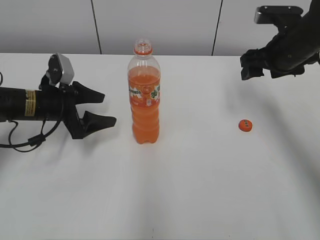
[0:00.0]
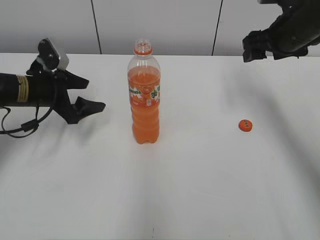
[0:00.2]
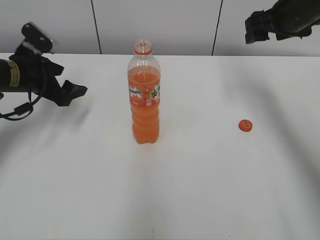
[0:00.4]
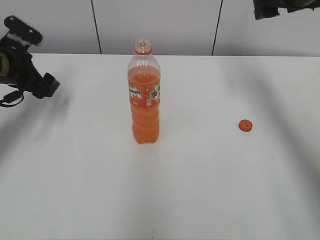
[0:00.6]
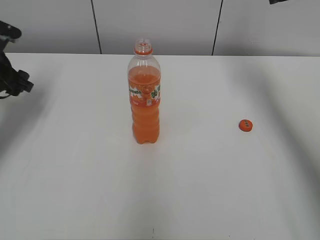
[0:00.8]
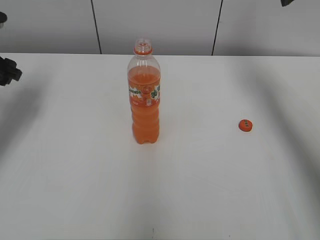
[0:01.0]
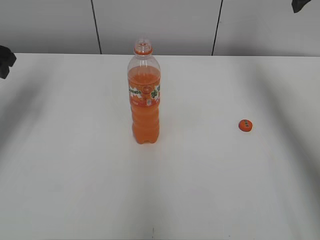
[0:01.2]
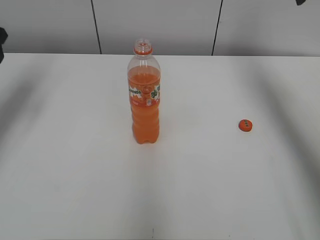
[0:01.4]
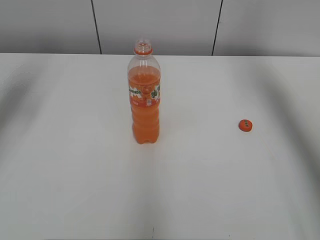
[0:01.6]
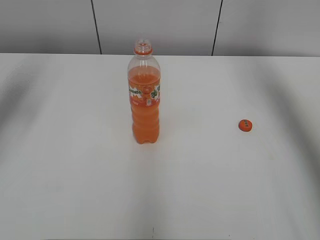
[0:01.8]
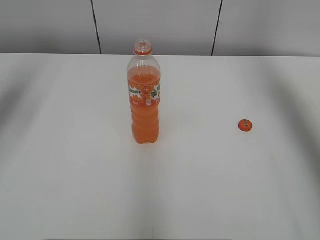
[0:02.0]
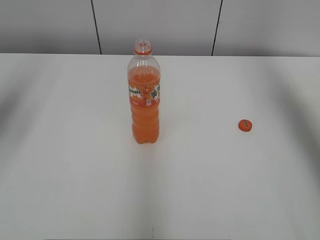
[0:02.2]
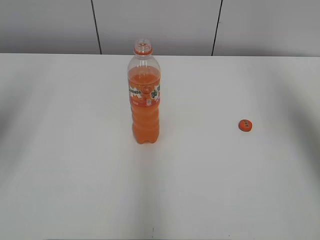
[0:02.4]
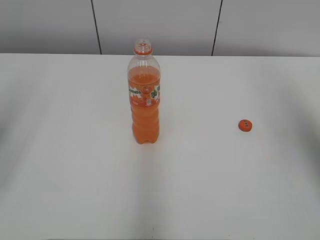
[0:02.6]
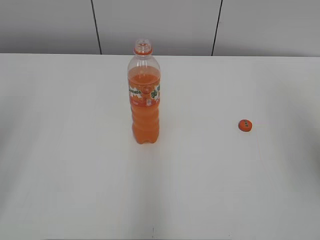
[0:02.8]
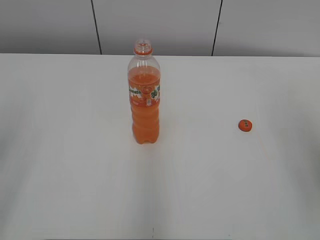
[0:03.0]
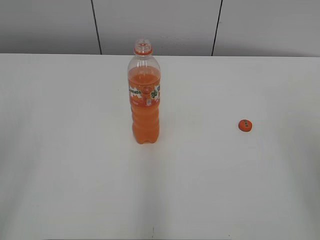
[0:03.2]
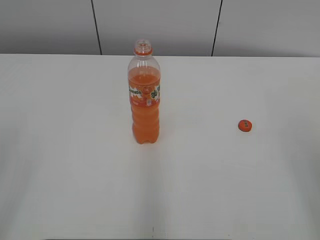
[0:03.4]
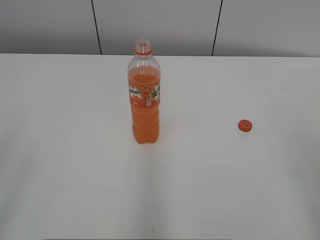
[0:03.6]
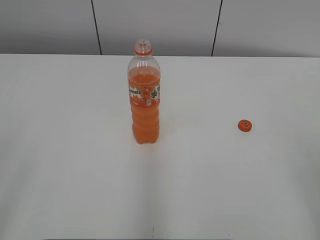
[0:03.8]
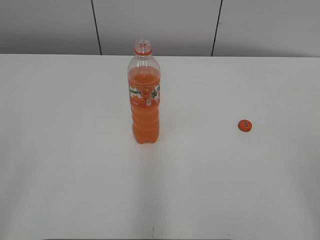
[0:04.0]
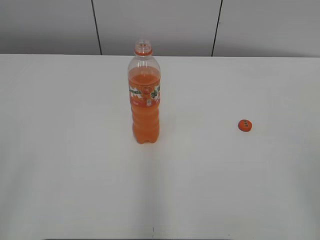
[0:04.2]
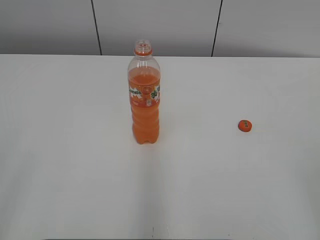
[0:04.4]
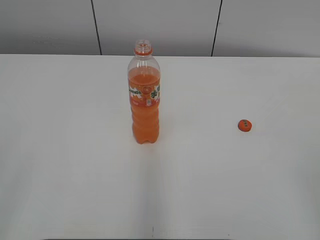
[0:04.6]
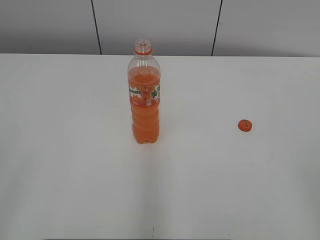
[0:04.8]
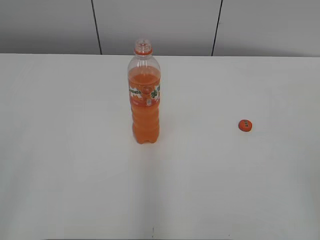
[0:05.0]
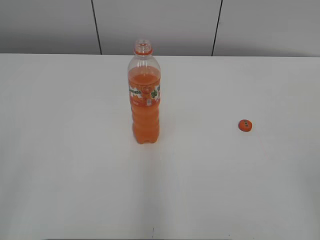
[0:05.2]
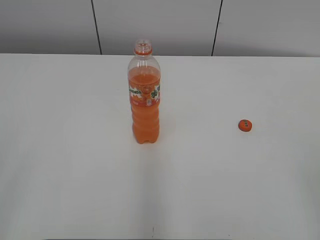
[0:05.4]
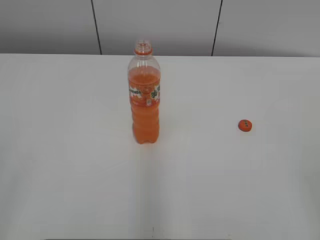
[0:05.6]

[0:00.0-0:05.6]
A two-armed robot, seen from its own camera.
0:00.0 to 0:01.4: The left gripper travels upward and to the left by some 20 cm. Meanwhile the right gripper travels upward by some 15 cm.
0:01.4 to 0:02.8: The grippers both shift backward by approximately 25 cm.
0:02.8 to 0:04.2: The left gripper shifts some 15 cm backward; the right gripper travels backward and downward by some 20 cm.

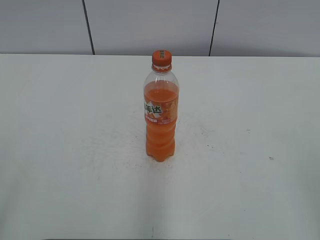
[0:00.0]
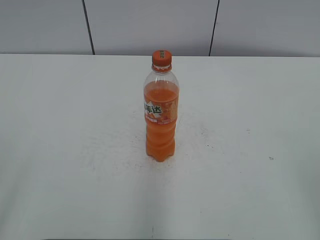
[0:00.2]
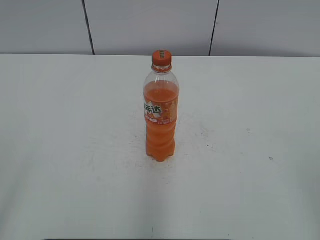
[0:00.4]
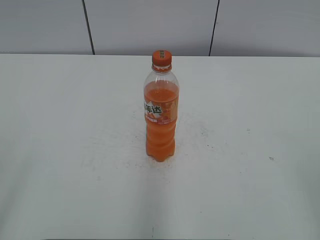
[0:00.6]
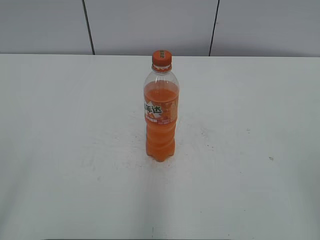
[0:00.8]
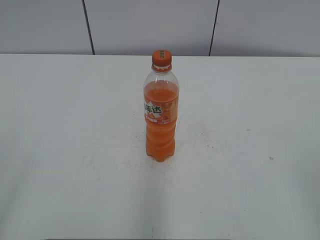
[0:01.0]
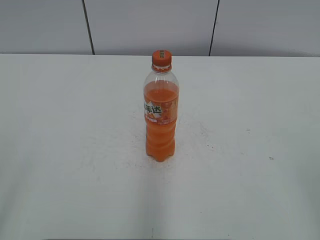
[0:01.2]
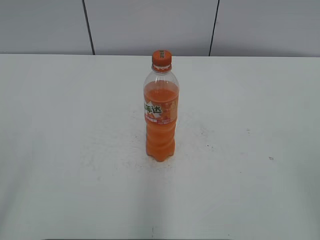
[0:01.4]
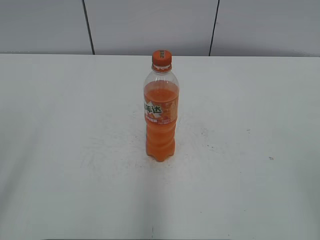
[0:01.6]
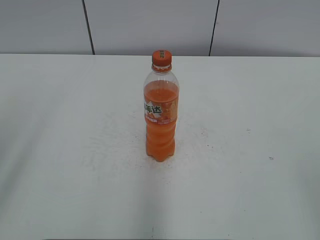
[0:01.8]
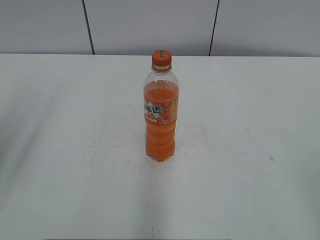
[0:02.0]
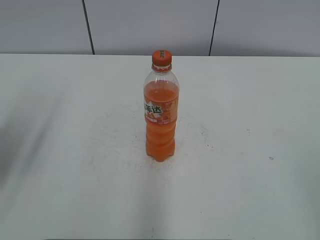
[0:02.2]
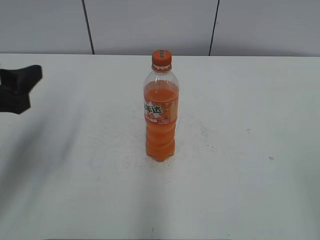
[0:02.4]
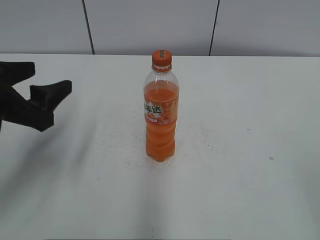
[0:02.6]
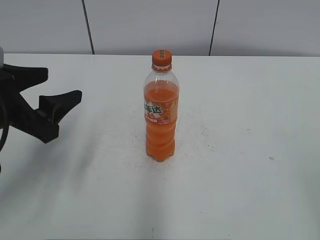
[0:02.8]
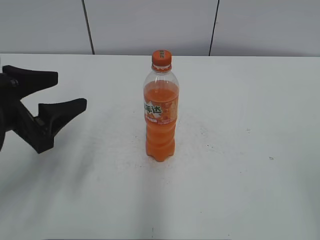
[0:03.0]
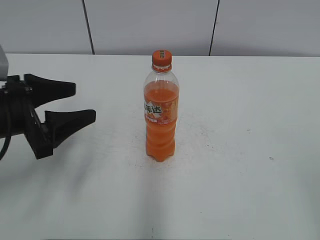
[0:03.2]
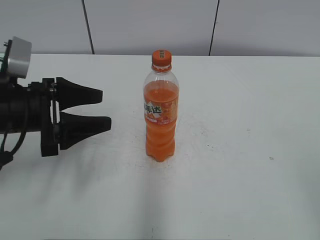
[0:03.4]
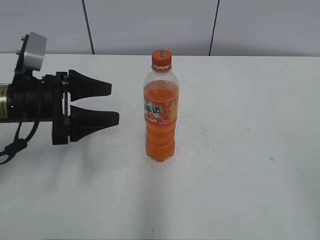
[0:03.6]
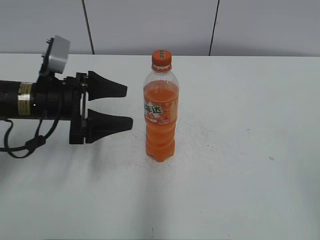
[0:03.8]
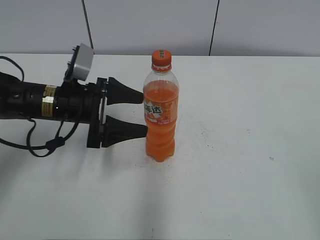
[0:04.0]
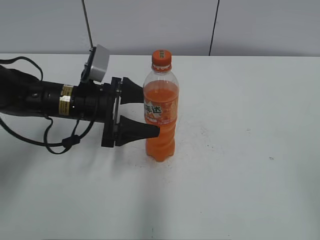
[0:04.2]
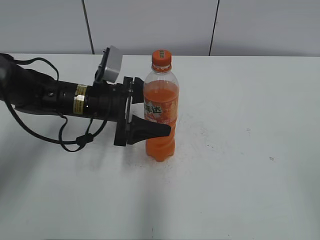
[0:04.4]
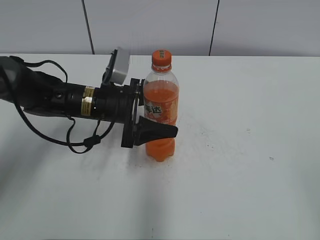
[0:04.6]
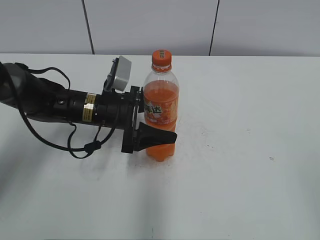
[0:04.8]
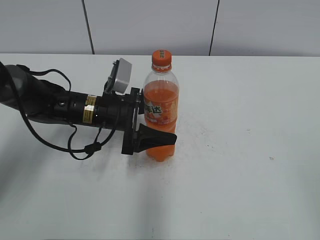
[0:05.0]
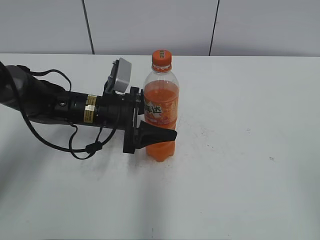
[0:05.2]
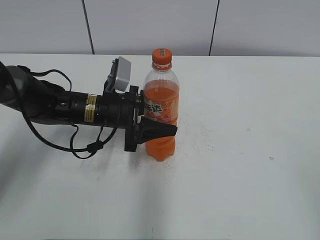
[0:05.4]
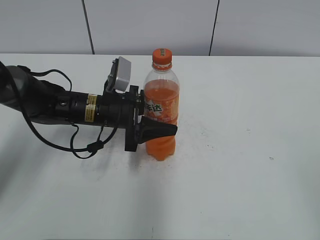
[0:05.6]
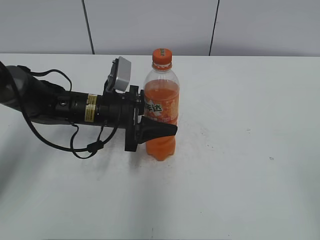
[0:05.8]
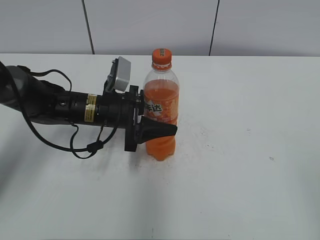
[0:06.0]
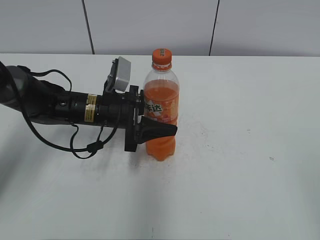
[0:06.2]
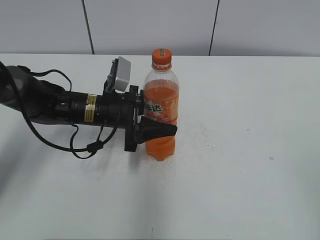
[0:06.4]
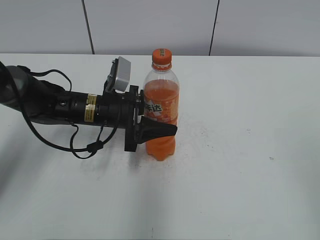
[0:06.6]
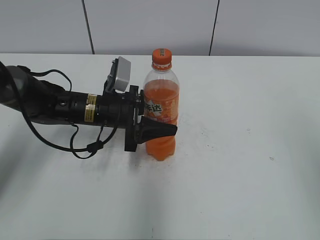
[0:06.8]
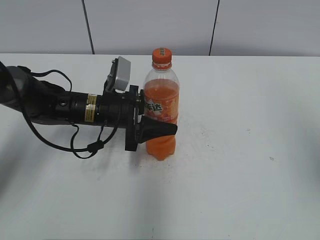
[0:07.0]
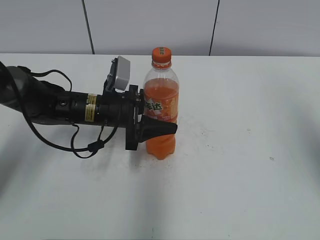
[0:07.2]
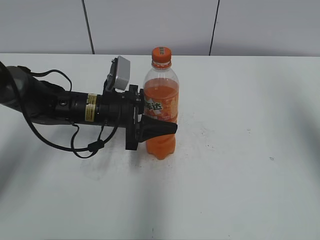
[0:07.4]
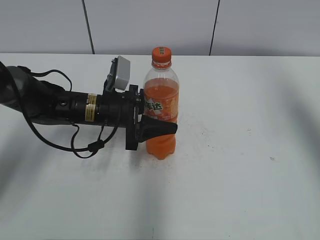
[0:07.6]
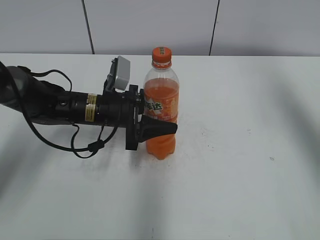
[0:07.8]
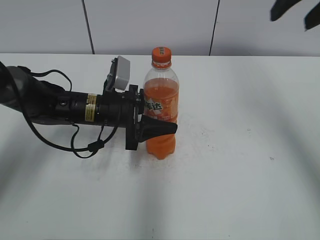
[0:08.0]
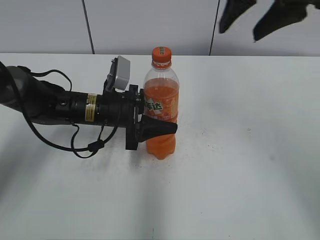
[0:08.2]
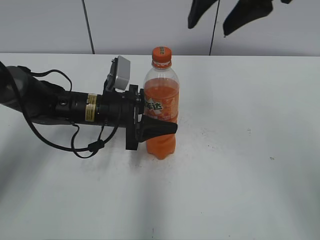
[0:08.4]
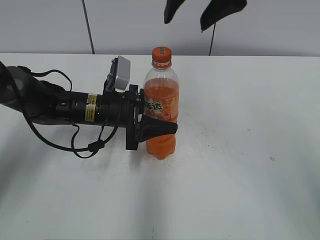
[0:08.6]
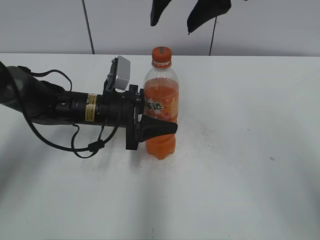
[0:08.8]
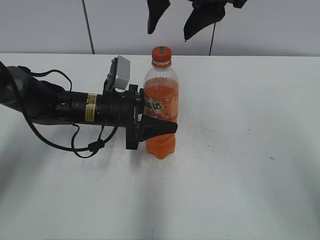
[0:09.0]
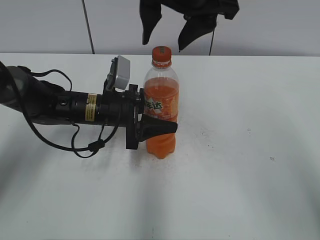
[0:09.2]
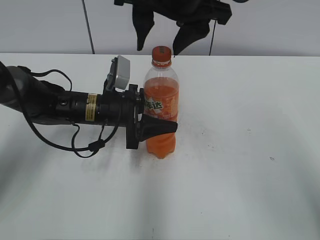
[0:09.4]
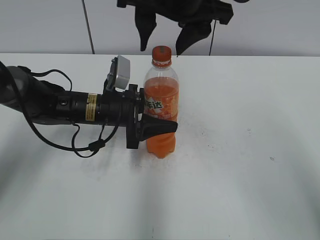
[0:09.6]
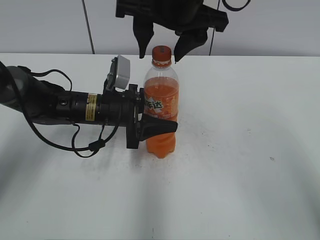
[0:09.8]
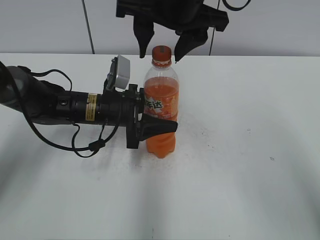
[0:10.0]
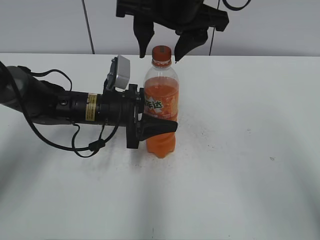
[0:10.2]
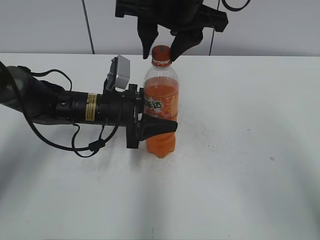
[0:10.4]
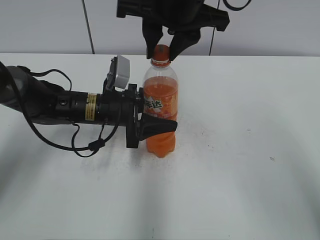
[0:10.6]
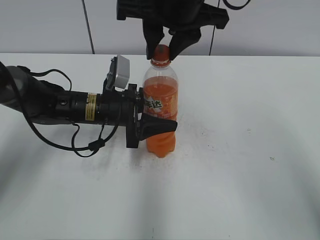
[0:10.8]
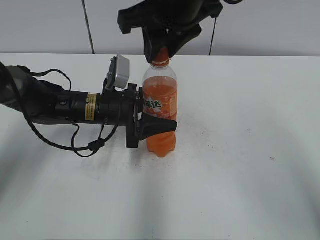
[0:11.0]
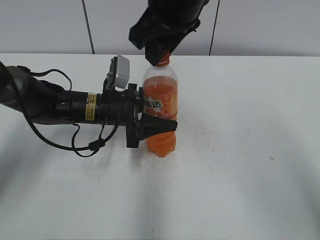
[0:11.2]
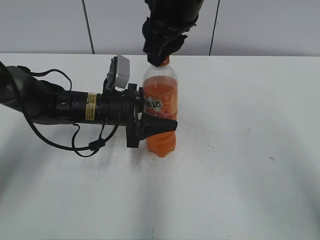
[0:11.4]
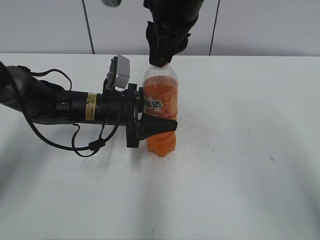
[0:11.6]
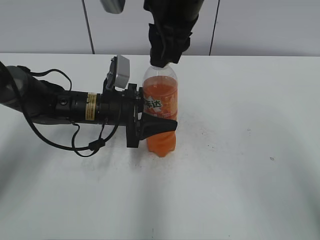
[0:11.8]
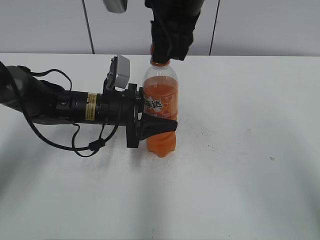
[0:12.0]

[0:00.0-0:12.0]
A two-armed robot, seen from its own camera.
Step, 0:00.0 to 0:05.2: Grab the Mirinda with the left hand.
0:01.6 to 0:03.0: The left gripper is displaced forward and downward by about 25 cm.
0:03.0 to 0:04.4: The left gripper goes roughly 15 cm forward, to the right and downward, and opens its fingers.
0:04.4 to 0:06.0: The left gripper closes.
0:06.0 to 0:07.6: The right gripper shifts roughly 30 cm forward and upward.
0:07.6 to 0:09.0: The right gripper goes approximately 25 cm to the left.
0:09.0 to 0:10.4: The grippers move only a little.
0:10.4 to 0:12.0: The right gripper closes up.

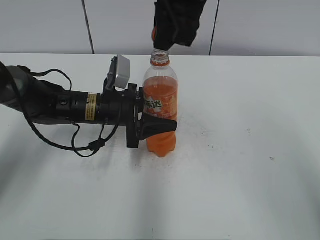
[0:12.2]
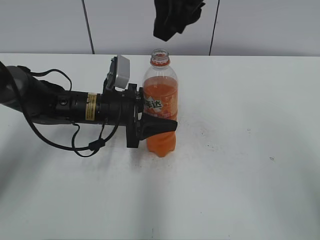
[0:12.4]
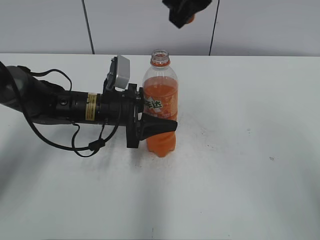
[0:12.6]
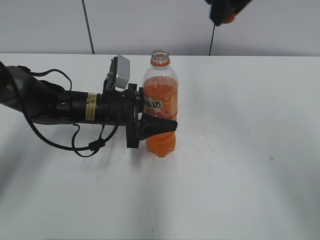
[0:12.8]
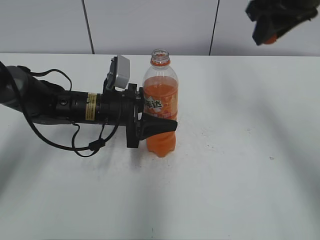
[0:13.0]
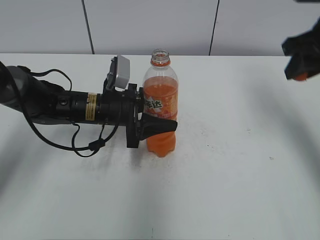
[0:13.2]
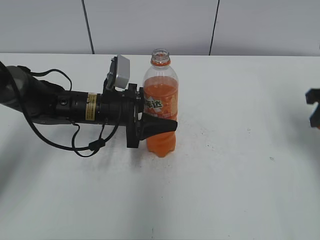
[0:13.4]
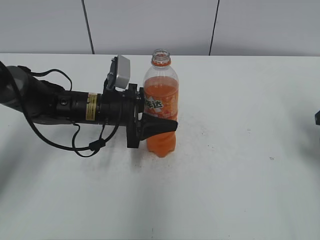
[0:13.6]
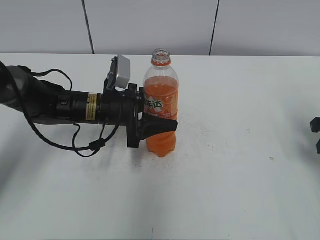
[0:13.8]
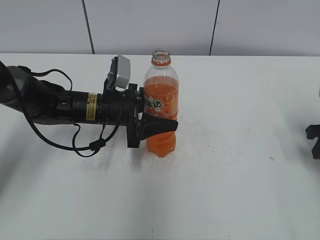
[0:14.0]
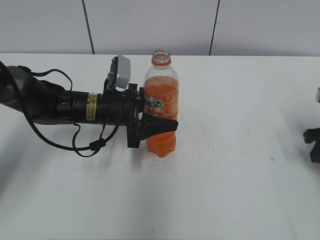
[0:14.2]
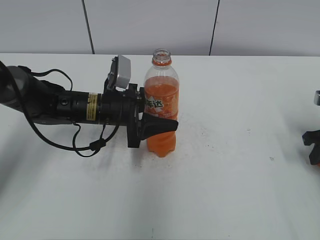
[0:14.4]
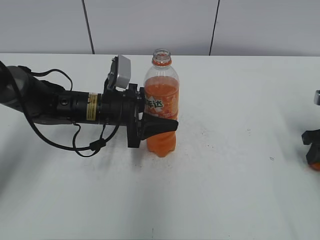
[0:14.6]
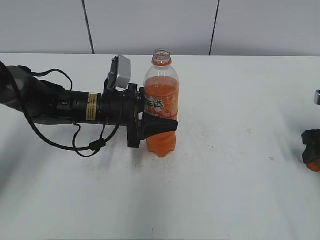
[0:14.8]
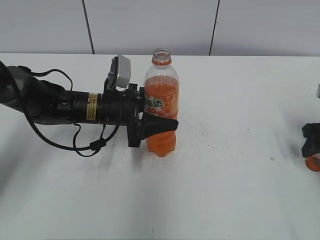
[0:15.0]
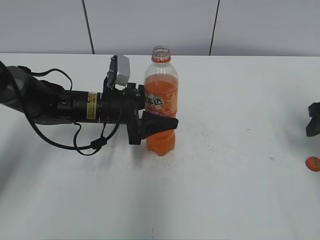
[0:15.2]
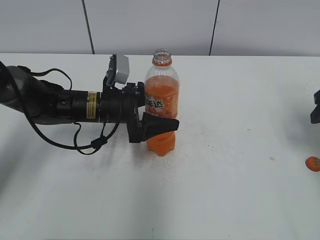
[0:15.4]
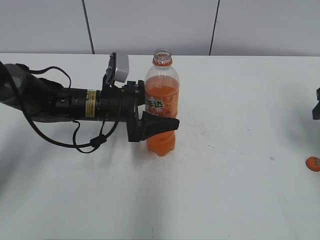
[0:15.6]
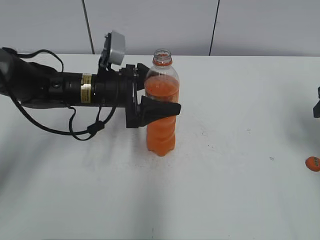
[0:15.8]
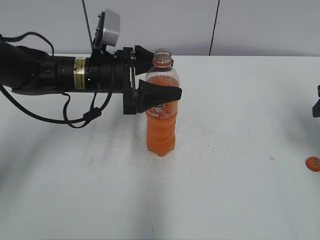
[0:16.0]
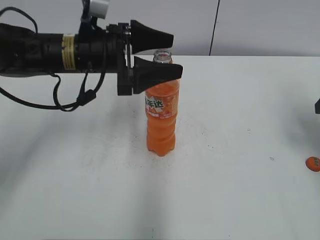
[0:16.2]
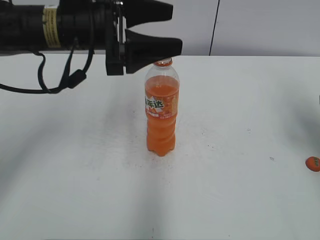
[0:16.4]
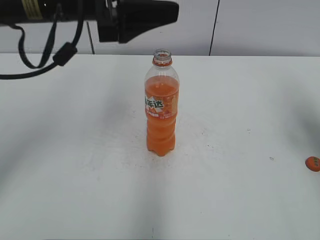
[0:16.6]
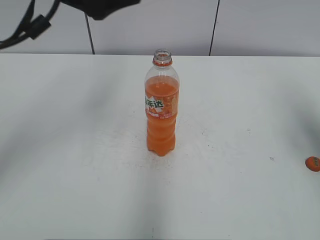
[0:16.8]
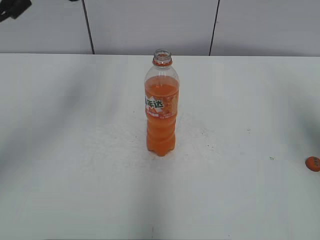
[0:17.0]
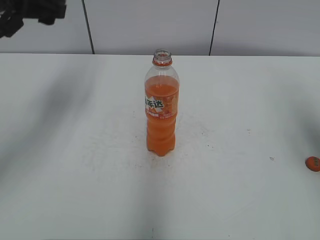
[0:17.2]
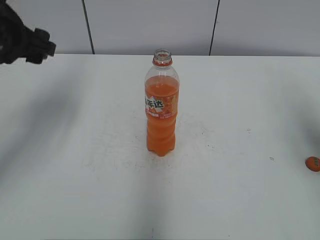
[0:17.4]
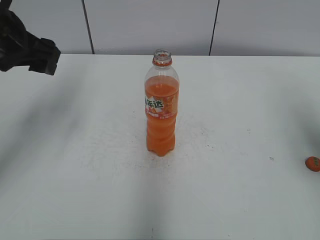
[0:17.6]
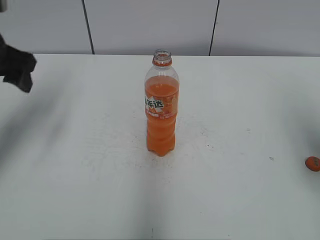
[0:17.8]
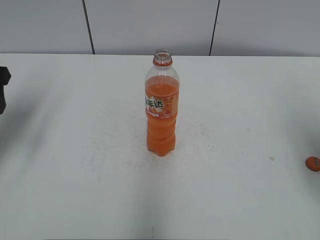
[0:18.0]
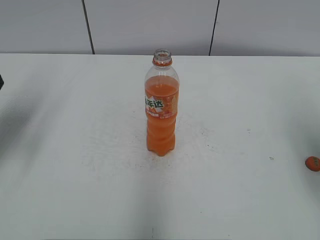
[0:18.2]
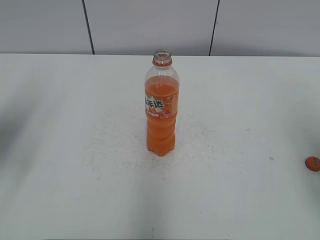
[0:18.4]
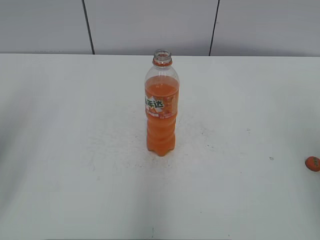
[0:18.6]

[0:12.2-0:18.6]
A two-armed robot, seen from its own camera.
Step, 0:12.2 to 0:14.8: Place the bottle cap on the right.
0:12.2 to 0:13.8: The right gripper goes roughly 35 cm to the right and downward.
0:13.8 to 0:15.4: The left gripper opens up, while the right gripper opens up.
0:15.4 to 0:17.0: The right gripper travels upward and backward by roughly 10 cm. Meanwhile the left gripper moves upward, approximately 25 cm.
0:17.0 to 0:18.6: The left gripper travels to the left and backward by about 15 cm, and closes.
